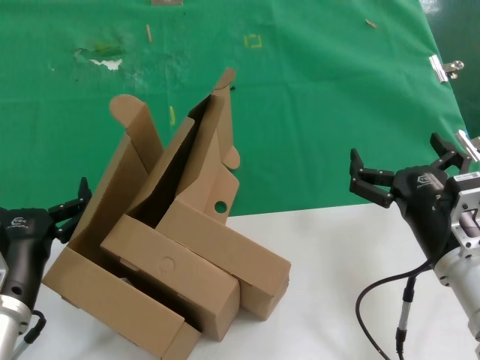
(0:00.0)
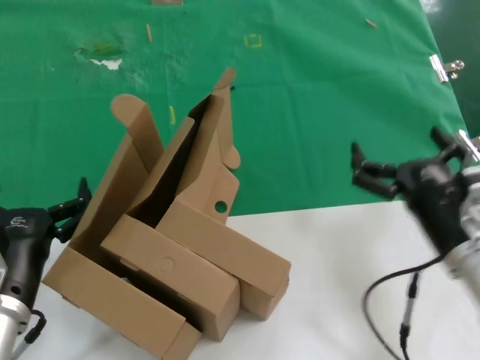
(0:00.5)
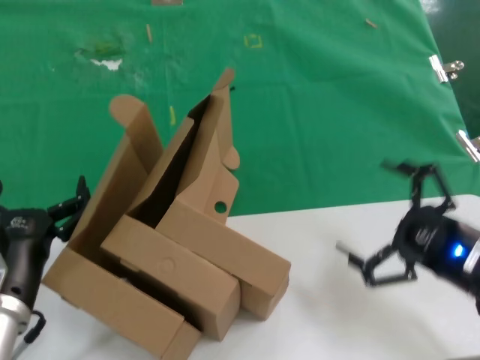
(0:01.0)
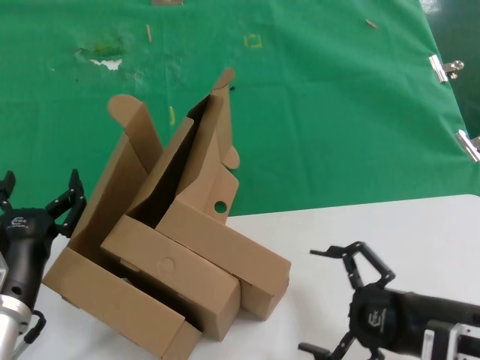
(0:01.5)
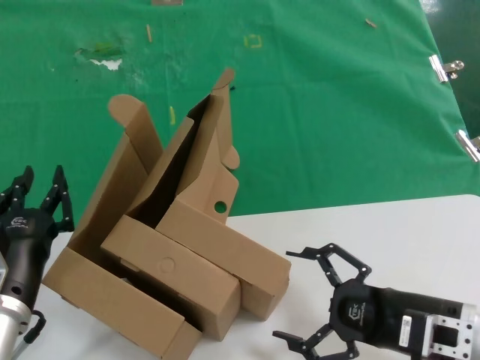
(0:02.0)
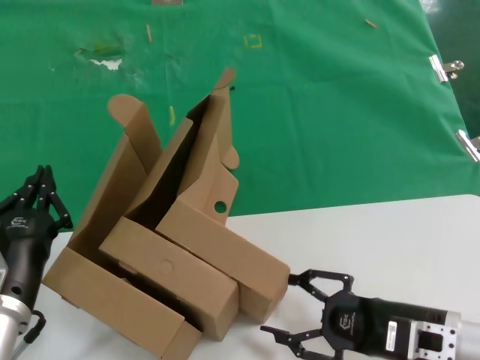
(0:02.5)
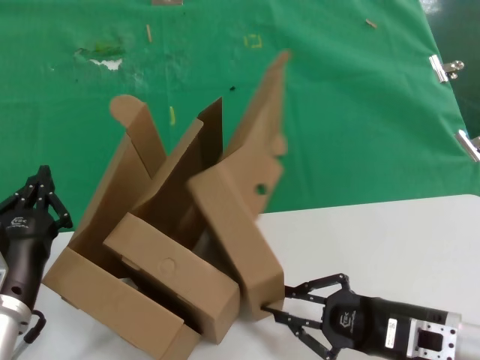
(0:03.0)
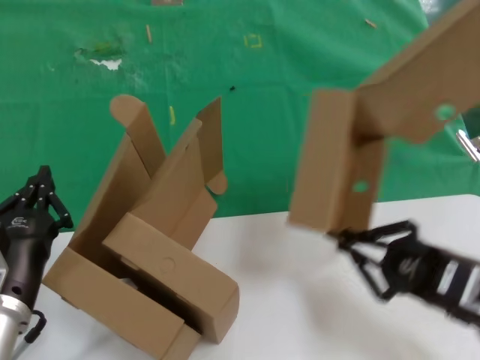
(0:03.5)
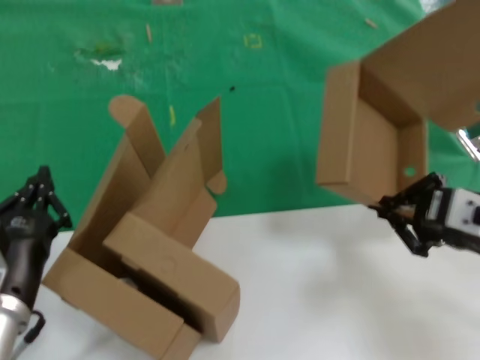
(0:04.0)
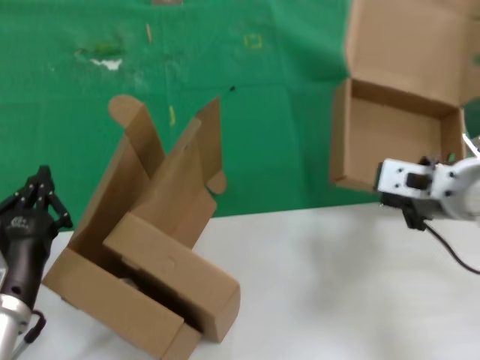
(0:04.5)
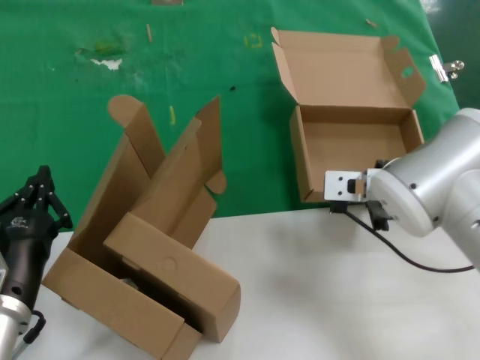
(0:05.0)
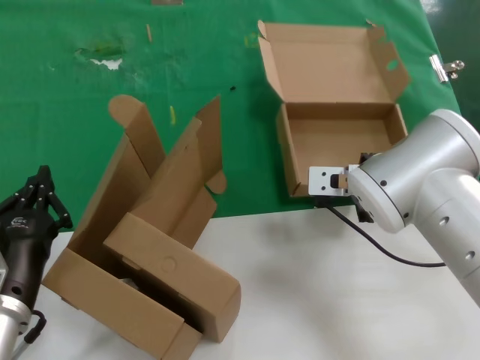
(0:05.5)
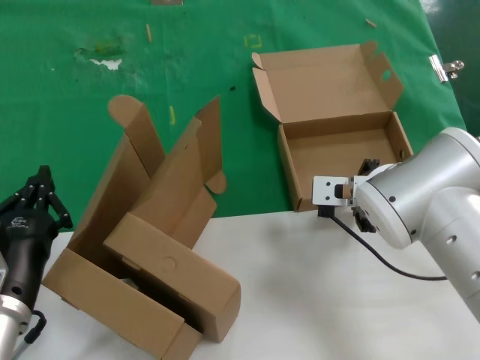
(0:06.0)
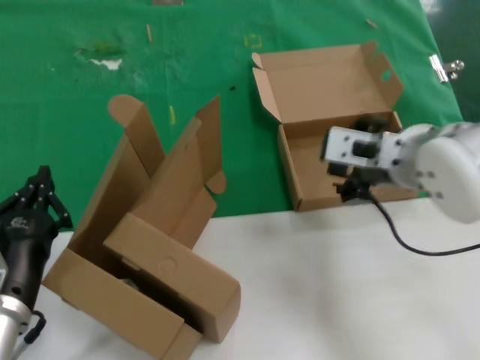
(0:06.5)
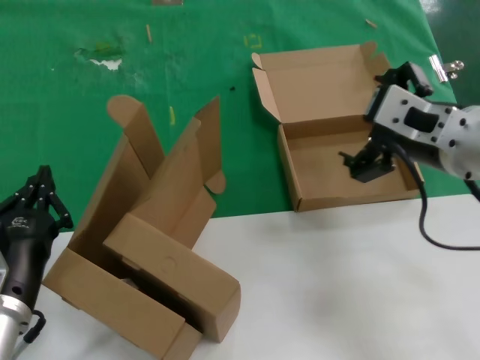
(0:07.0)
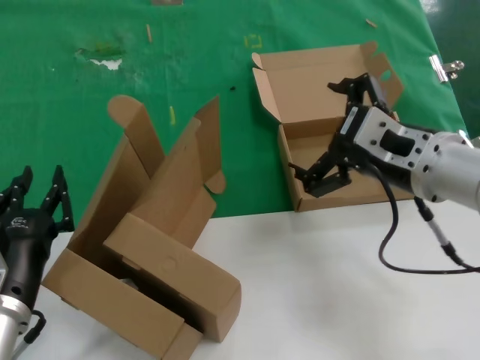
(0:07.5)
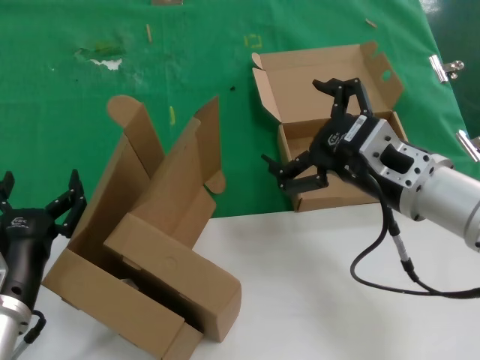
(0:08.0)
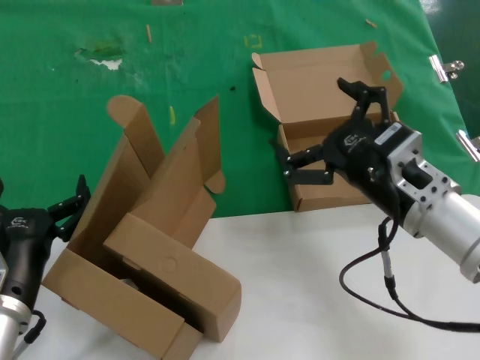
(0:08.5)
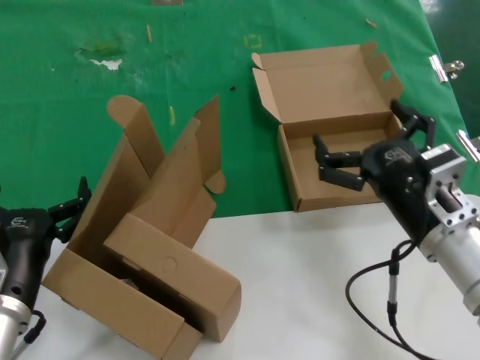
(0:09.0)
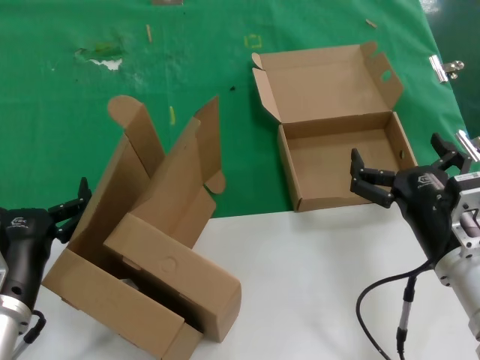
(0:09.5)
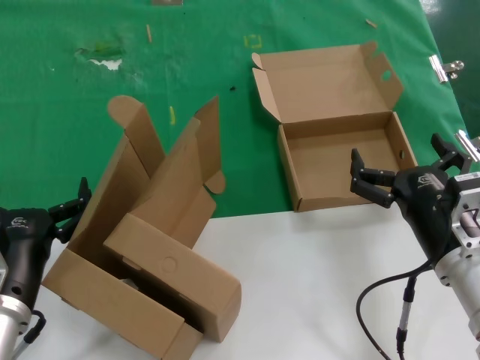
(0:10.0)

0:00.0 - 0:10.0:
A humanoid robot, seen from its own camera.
Task of the whole recording: pick up the paper box and put it at the back.
Step, 0:00.0 - 0:03.0: Grasp the paper box.
Step, 0:03.5 - 0:05.5: Place the paper box on the table.
0:02.0 - 0:04.0: The right hand goes about 15 cm upward.
0:04.0 - 0:06.0: The right hand shifts some 20 cm to the left and forward.
0:06.0 - 0:08.0: The right hand moves backward, some 10 cm, and travels upward and back again, some 10 cm each way.
0:08.0 - 0:10.0: The right hand shifts some 10 cm downward.
